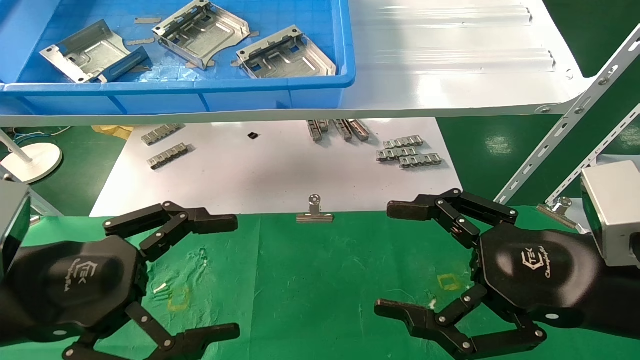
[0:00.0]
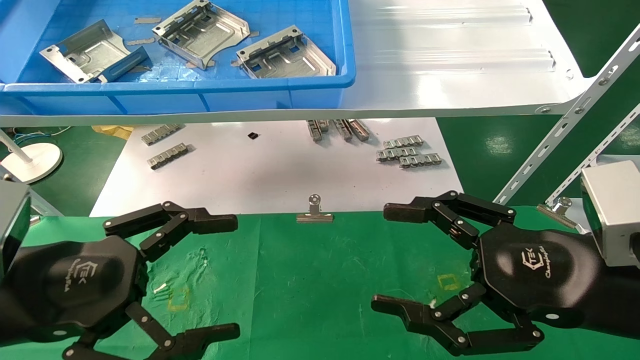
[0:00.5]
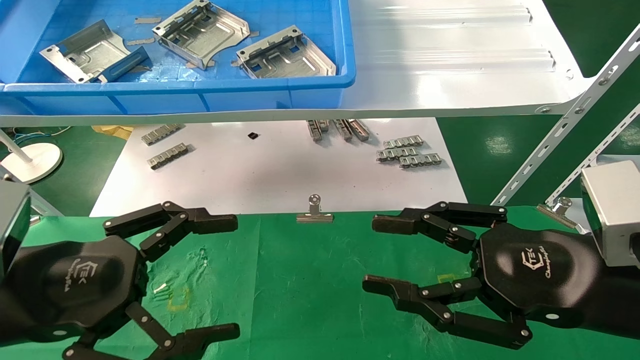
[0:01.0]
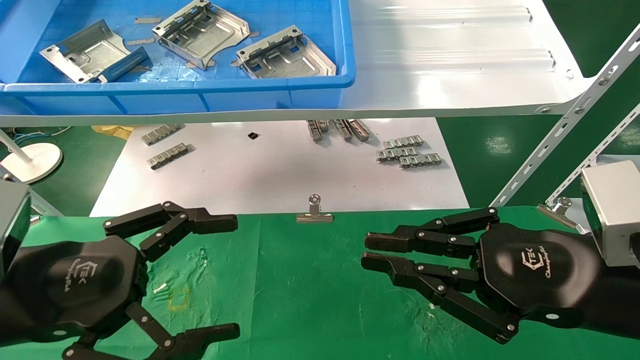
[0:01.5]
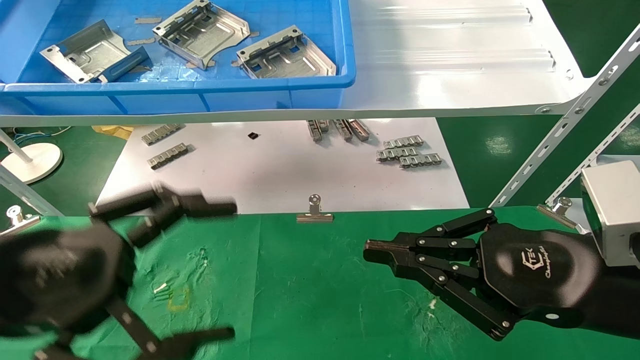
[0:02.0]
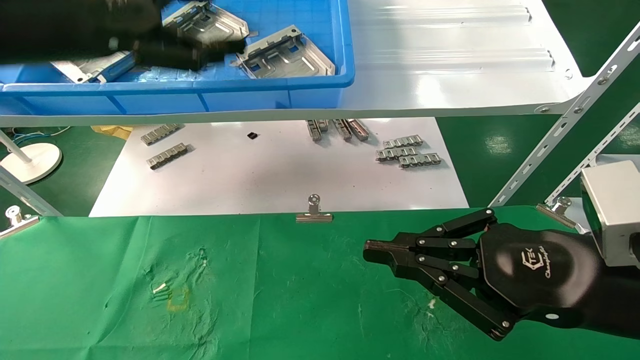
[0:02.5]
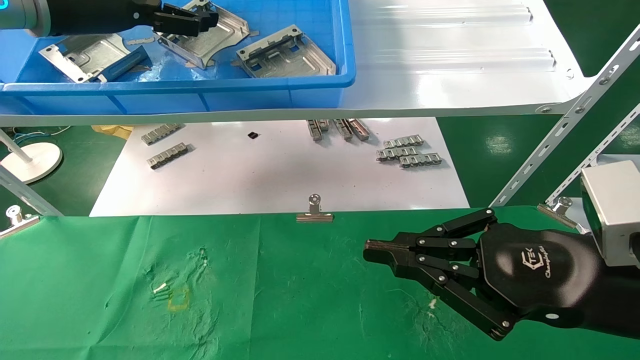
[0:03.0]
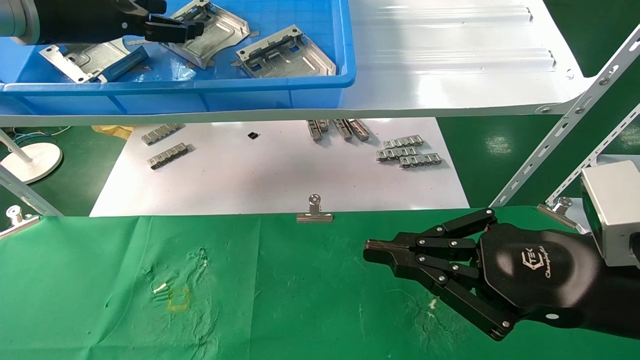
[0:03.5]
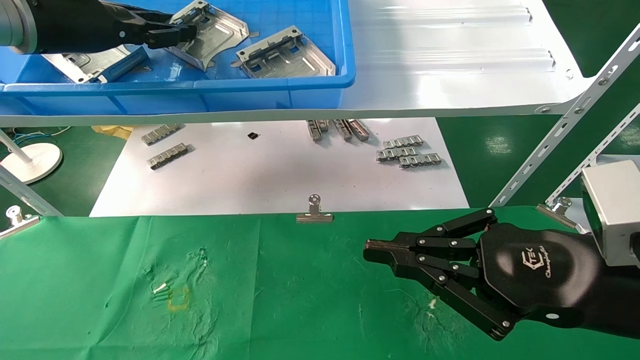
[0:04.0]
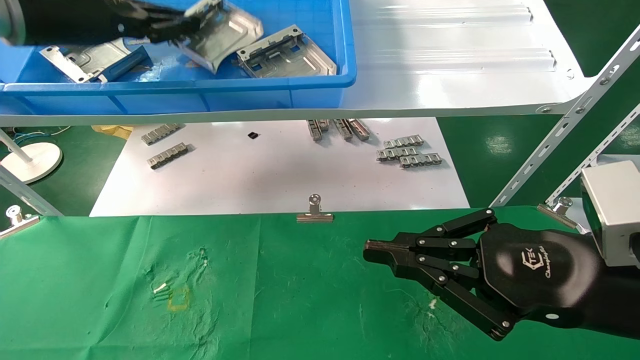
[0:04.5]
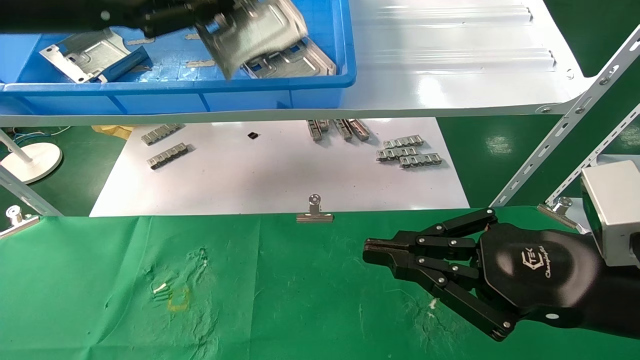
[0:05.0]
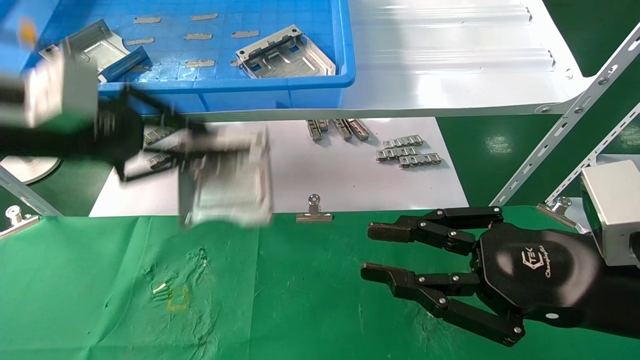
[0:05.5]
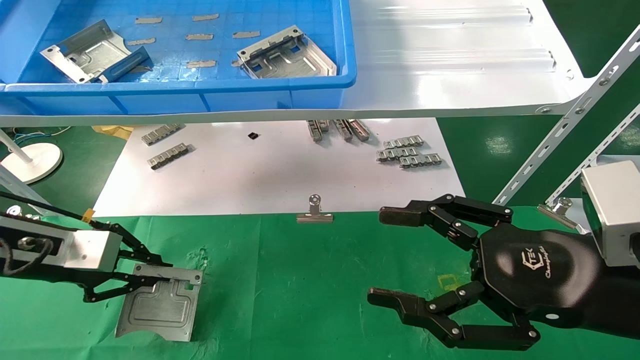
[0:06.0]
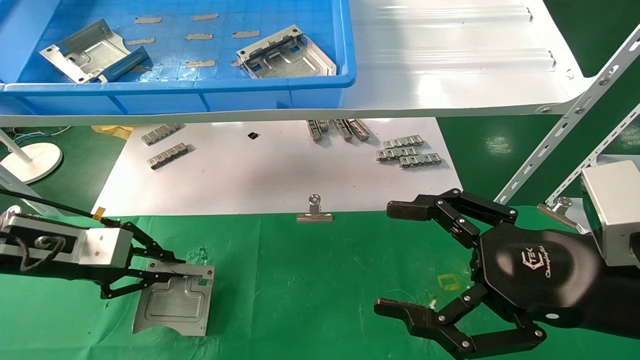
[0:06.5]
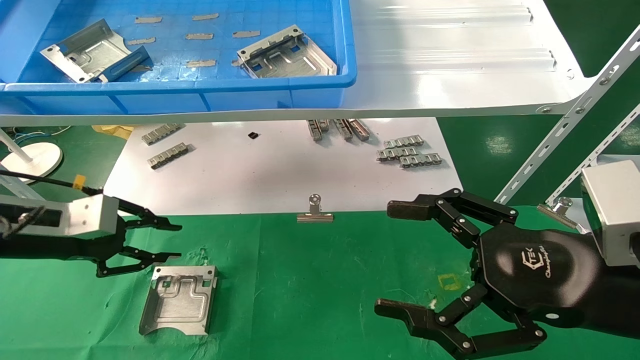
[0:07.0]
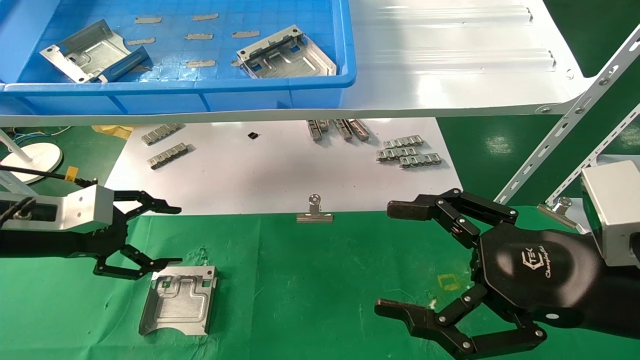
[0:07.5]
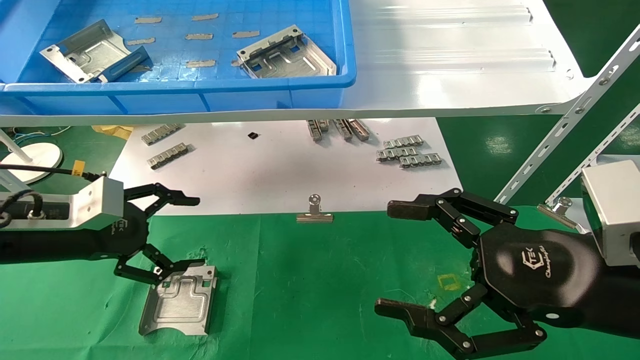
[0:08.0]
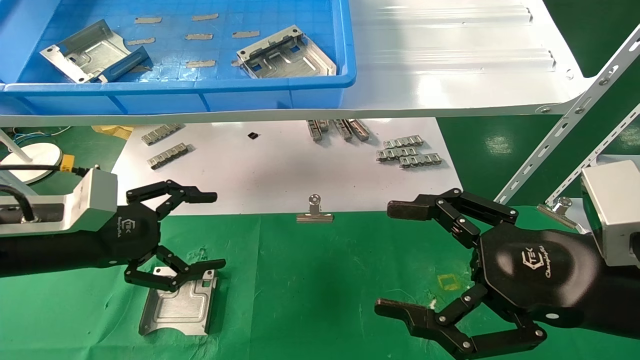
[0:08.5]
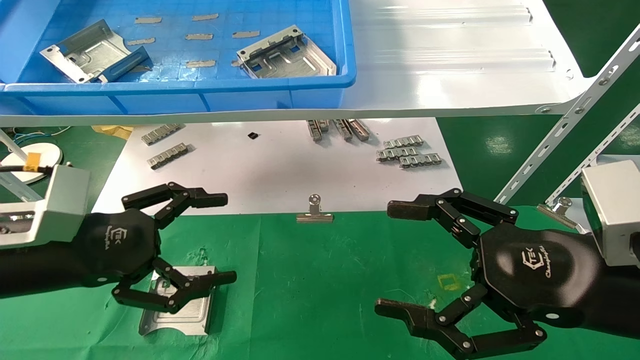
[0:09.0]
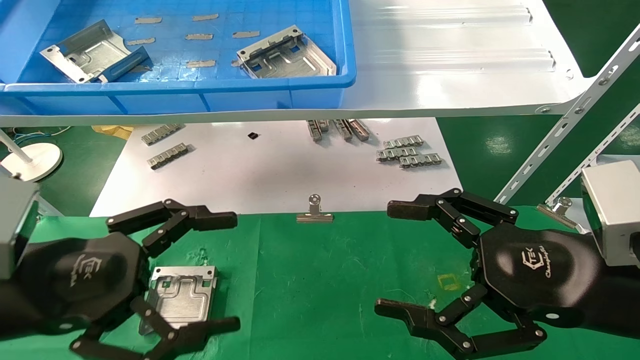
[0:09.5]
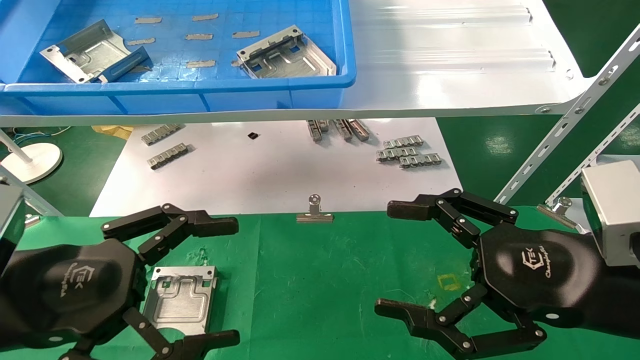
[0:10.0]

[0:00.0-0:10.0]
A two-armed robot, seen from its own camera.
Task of the whole recording: use the mechanical arm to pick up the parts and place them on the table.
Step, 0:01.5 to 0:04.5: Pick up the hard drive bracket from the feeding area.
Step, 0:05.0 to 0:07.5: Place the hard drive bracket into the box.
0:00.0 to 0:02.0: The right gripper closes its fingers. Meanwhile the left gripper travels upward by roughly 5 cm.
0:02.0 to 0:04.0: The left gripper is displaced forward and upward by roughly 25 cm, and closes its fingers.
0:04.0 to 0:06.0: The left gripper travels downward by about 20 cm, and closes; the right gripper opens up.
0:06.0 to 0:08.0: The left gripper opens up, while the right gripper opens.
0:08.0 to 0:10.0: The left gripper goes about 15 cm backward and to the right.

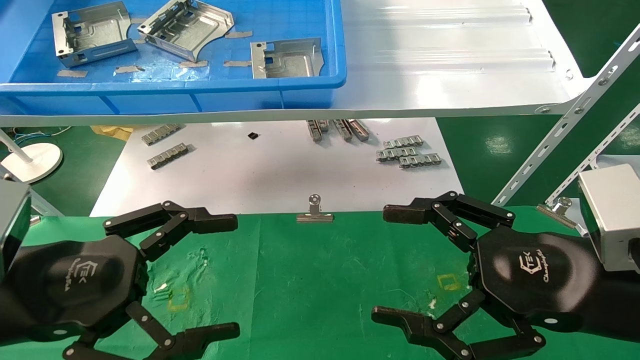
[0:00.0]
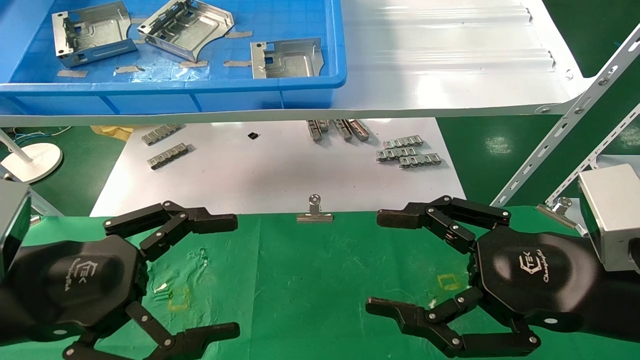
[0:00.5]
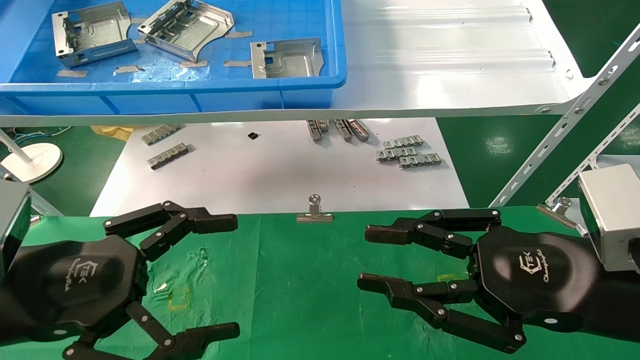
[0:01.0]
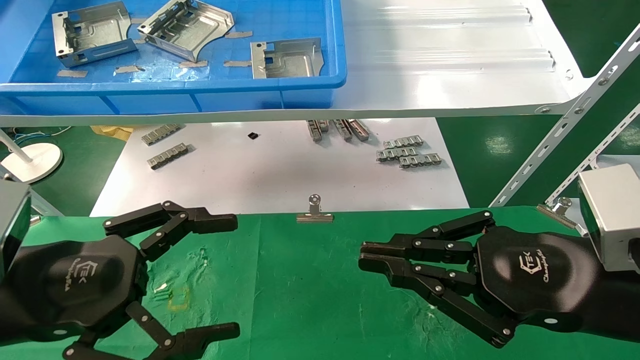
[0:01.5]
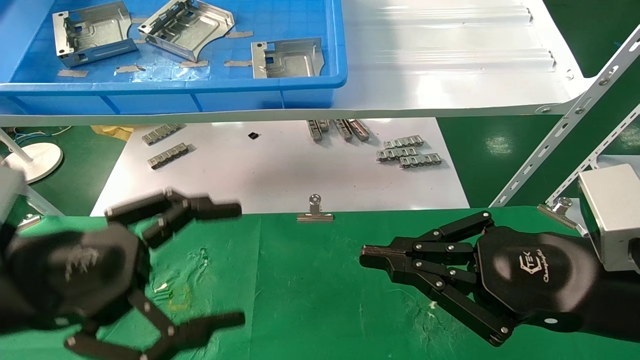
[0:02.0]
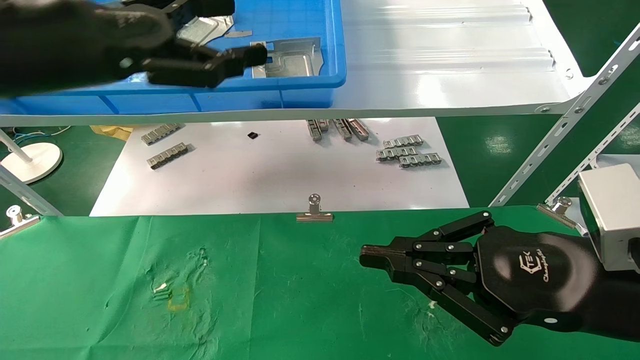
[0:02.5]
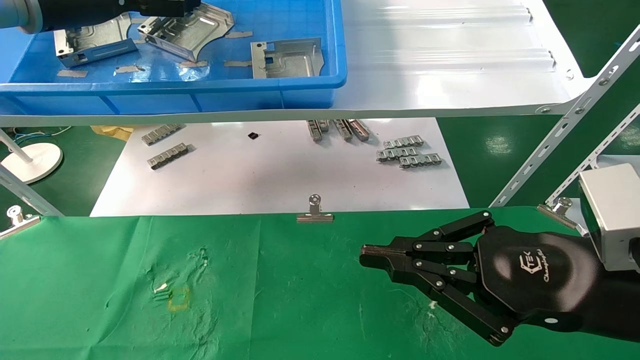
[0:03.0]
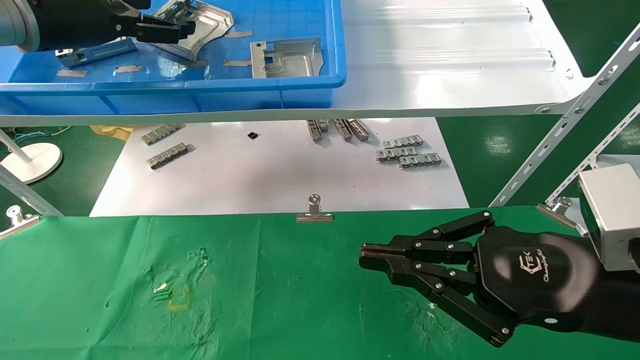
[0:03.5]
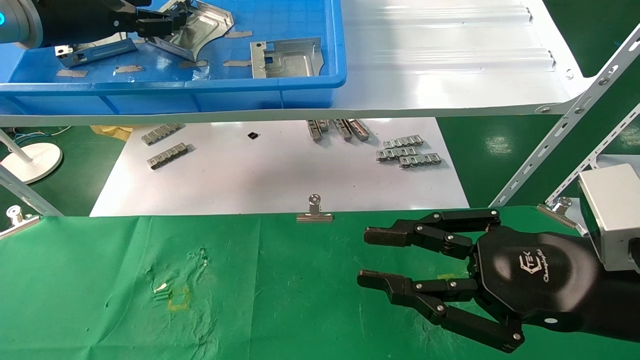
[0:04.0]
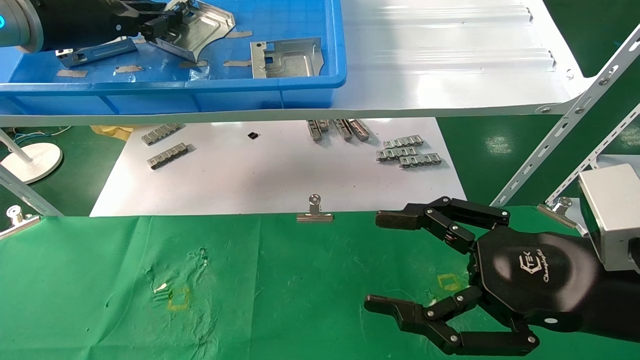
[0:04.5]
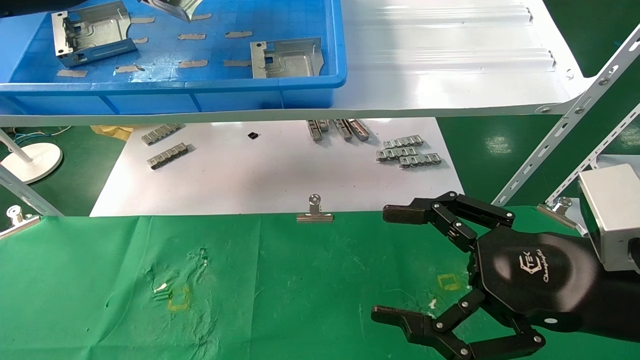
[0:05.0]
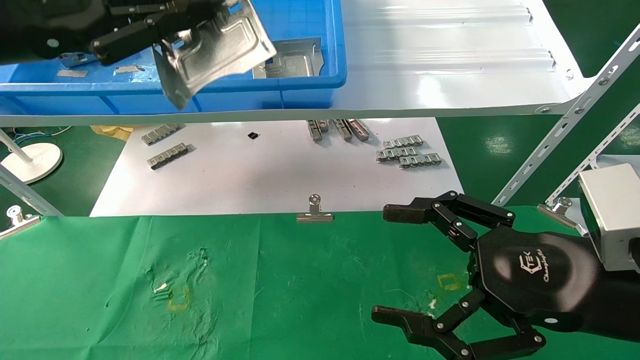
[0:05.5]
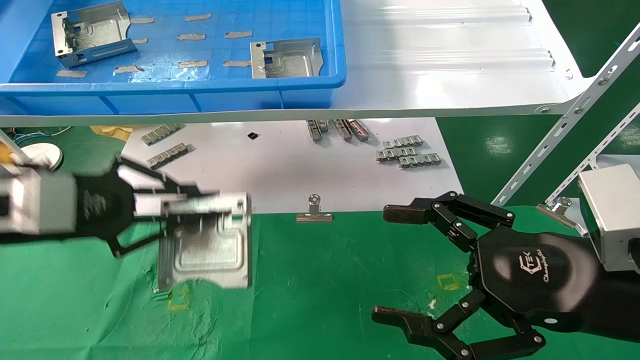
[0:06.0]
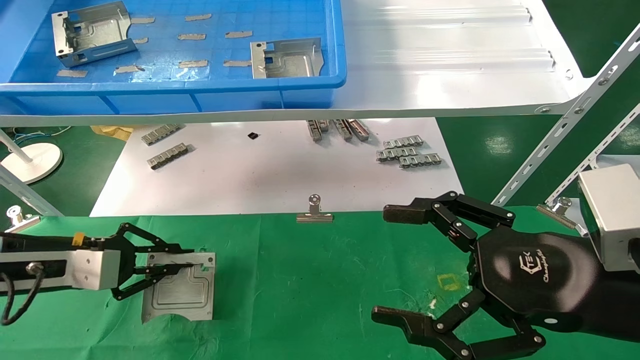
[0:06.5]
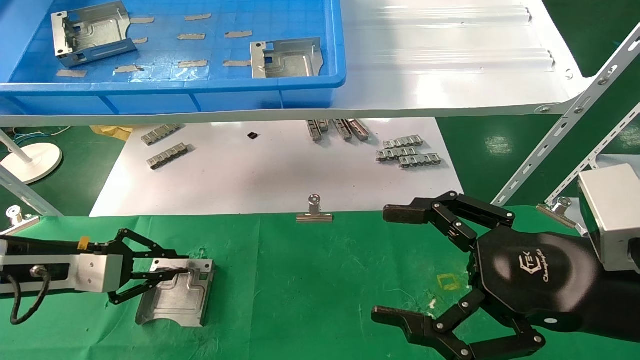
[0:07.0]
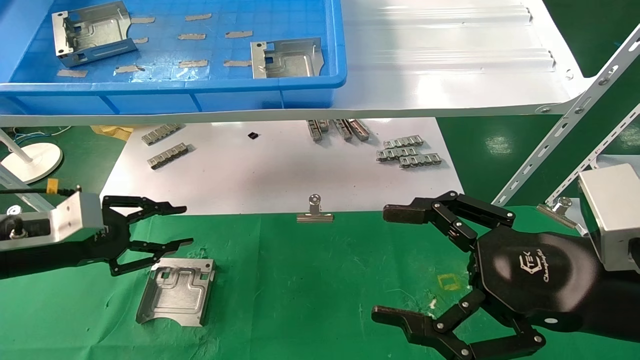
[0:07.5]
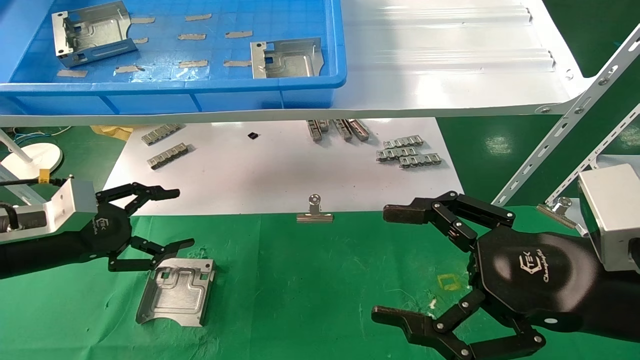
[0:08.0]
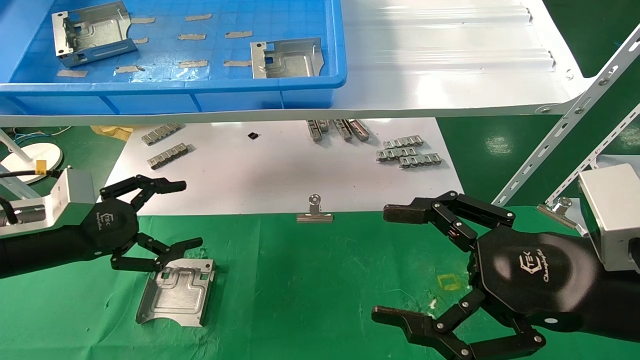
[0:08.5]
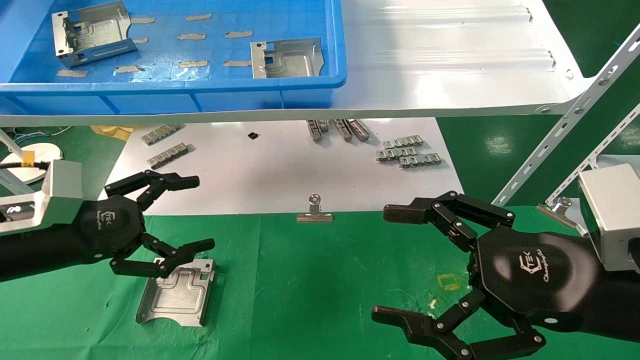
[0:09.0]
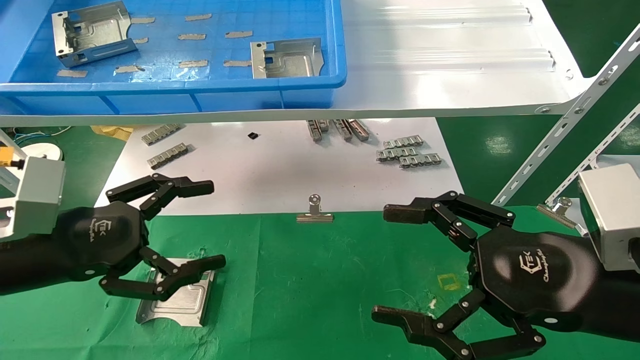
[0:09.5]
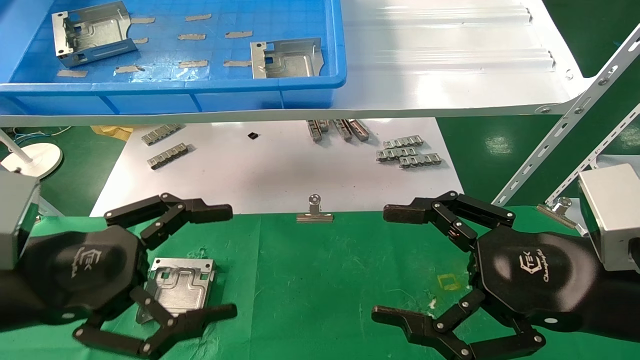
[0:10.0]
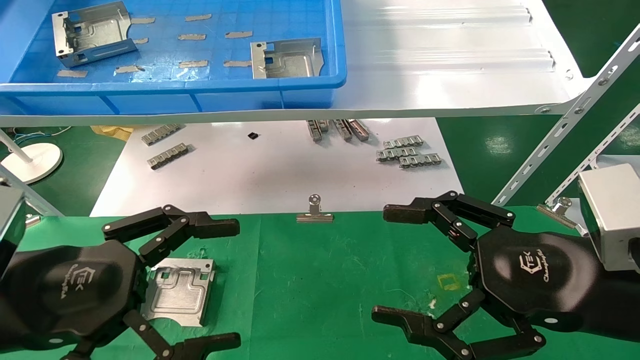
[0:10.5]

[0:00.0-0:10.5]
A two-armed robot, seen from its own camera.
Task of the whole recording: use the mechanical arm to pick up the parts and place them on the table.
Step, 0:01.0 to 0:04.5: Pick up the hard drive bracket from the feeding area.
Step, 0:05.0 to 0:07.0: Place the hard drive bracket into the box.
0:00.0 to 0:02.0: The right gripper closes its fingers.
0:02.0 to 0:04.0: The left gripper shifts some 30 cm forward and upward.
0:04.0 to 0:06.5: The right gripper opens up, while the left gripper shifts about 30 cm downward, and closes.
0:06.5 to 0:08.5: The left gripper opens its fingers.
0:08.5 to 0:10.5: The left gripper is displaced backward and to the right by some 15 cm.
